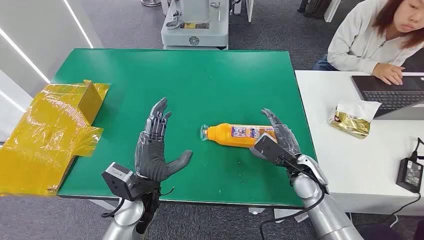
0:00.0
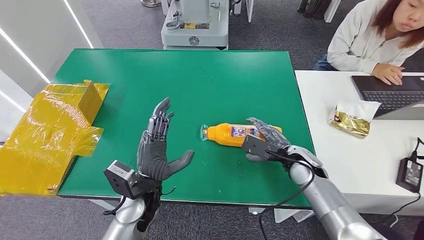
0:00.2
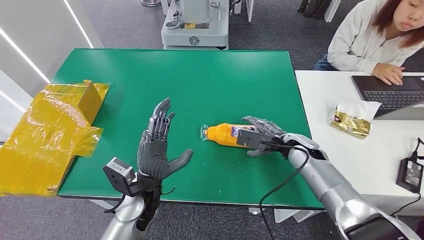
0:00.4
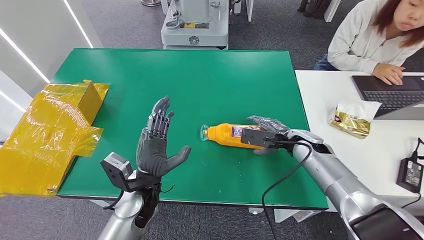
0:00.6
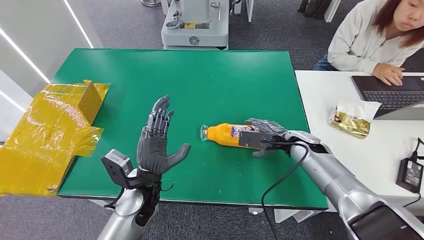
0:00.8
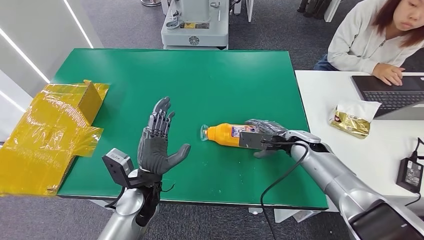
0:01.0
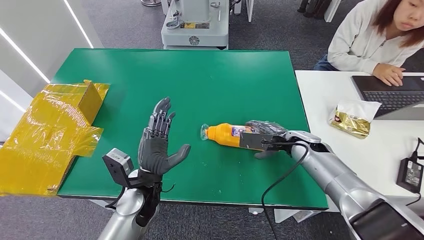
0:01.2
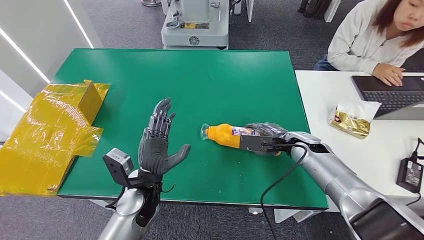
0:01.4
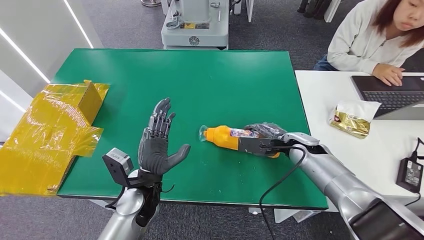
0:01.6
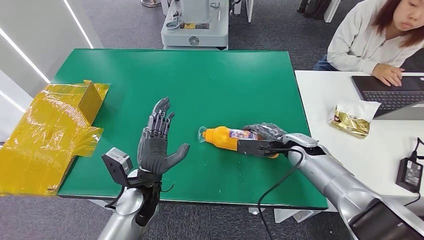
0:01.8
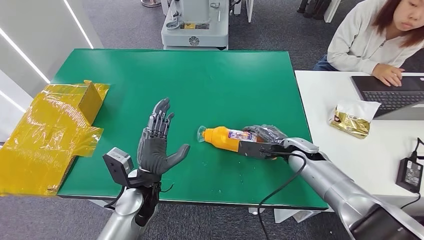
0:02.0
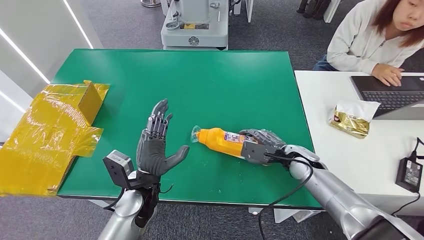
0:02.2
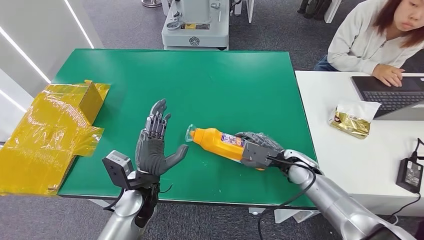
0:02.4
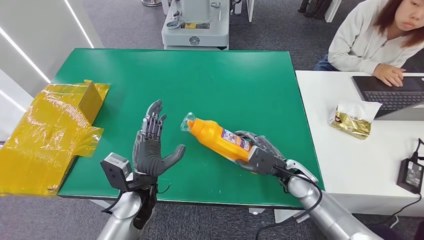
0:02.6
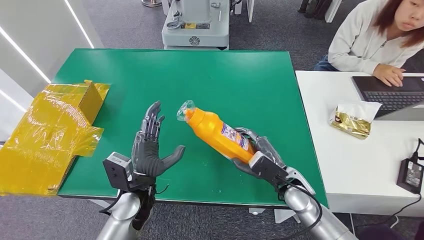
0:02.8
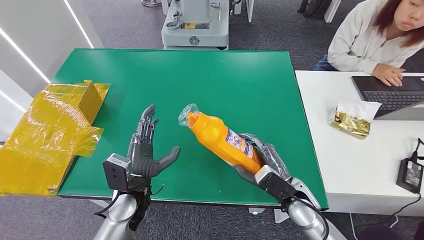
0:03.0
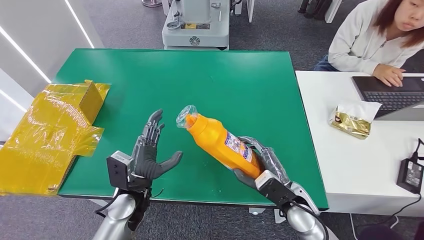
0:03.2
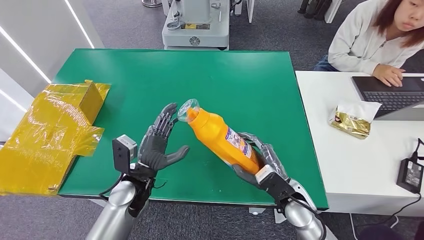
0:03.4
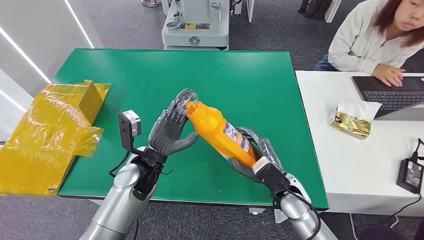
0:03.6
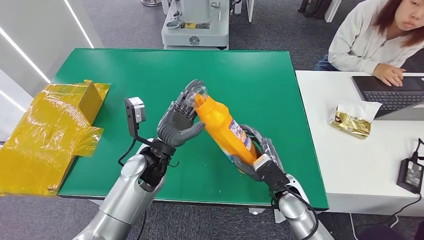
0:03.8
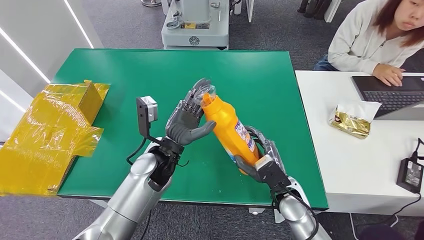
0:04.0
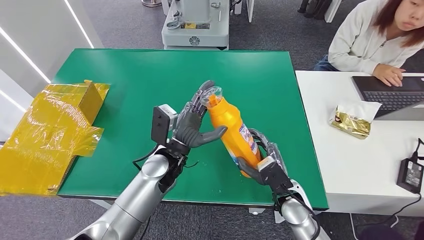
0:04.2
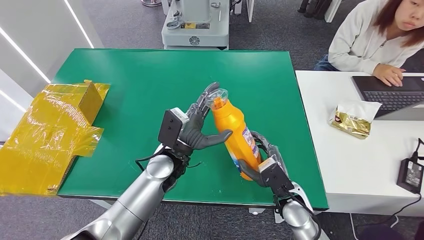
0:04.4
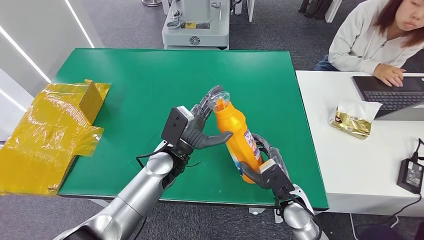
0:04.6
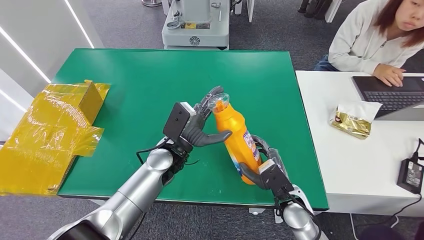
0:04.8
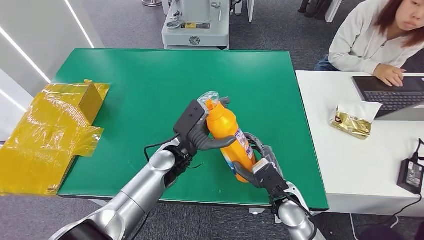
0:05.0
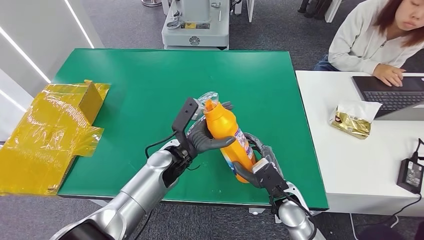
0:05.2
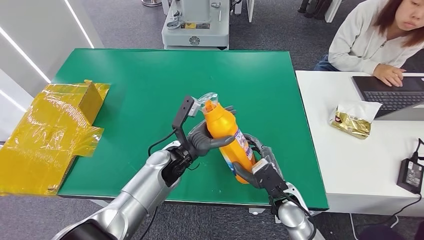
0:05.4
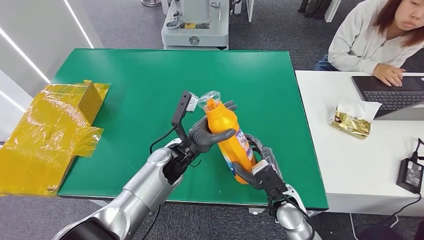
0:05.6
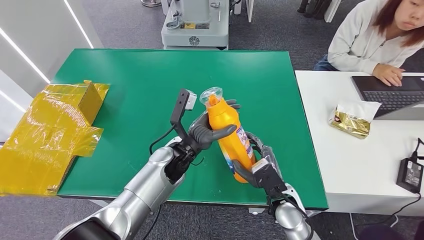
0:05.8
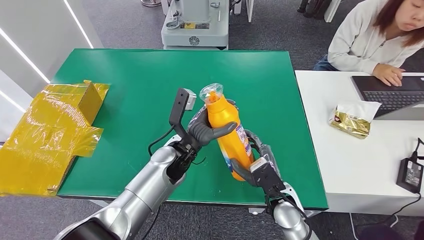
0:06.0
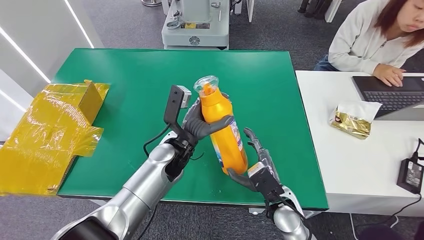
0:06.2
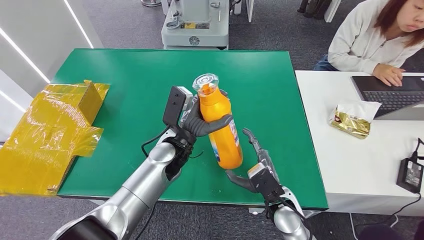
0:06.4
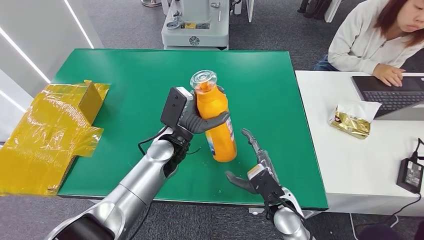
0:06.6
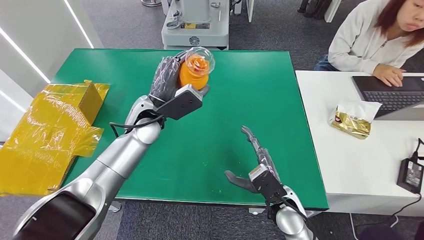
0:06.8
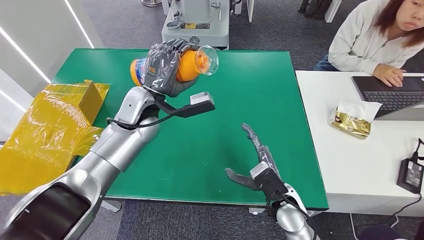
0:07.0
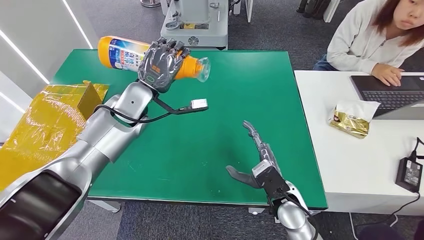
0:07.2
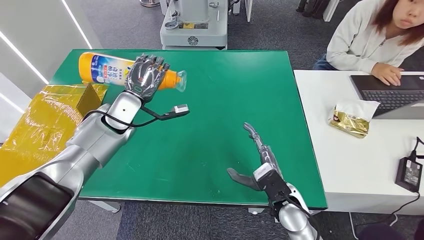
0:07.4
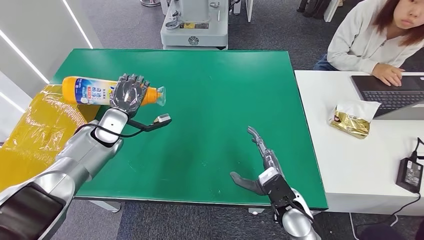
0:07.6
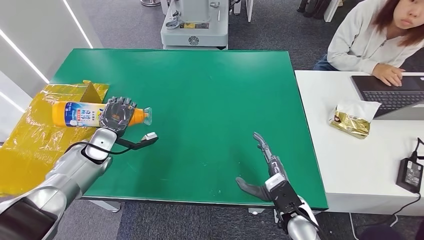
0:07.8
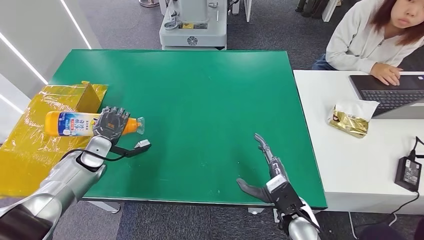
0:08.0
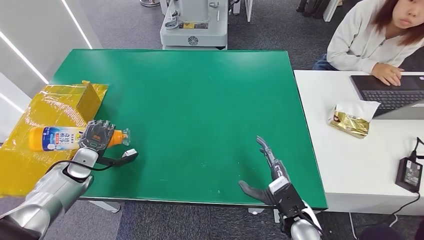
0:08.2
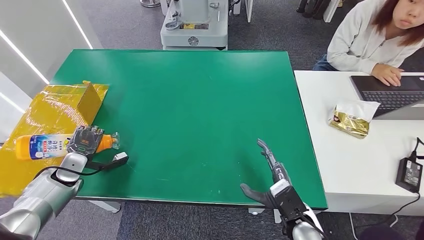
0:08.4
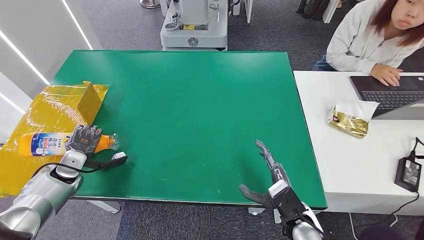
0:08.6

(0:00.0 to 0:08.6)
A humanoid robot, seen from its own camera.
Step, 0:00.0 - 0:02.8: Pick up the bottle from the table.
Step, 0:03.2 - 0:08.6: Turn the bottle to the front side.
0:01.4 - 0:02.8: The right hand goes approximately 10 cm backward.
0:02.8 - 0:04.4: The left hand travels forward and to the right by approximately 10 cm.
0:07.2 - 0:08.6: The left hand goes some 35 cm to the left, downward and backward; the right hand changes place by roughly 5 cm.

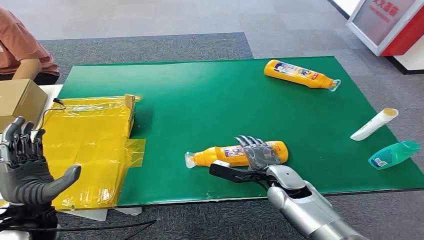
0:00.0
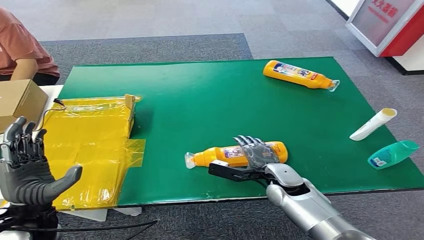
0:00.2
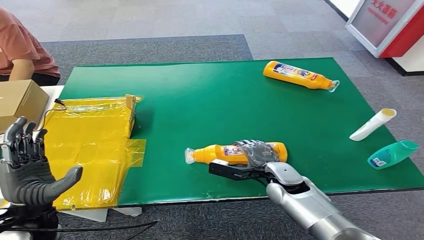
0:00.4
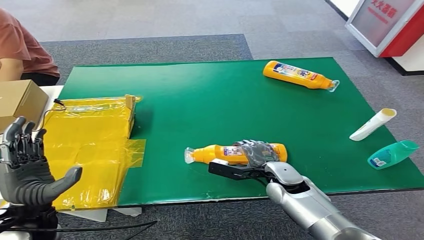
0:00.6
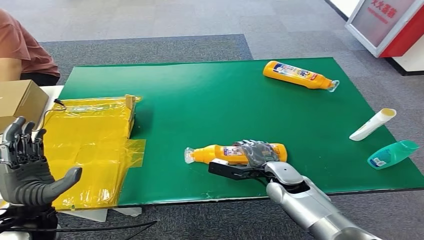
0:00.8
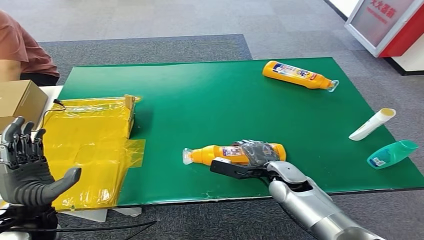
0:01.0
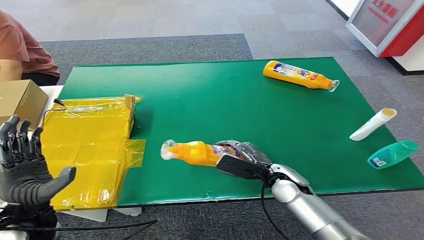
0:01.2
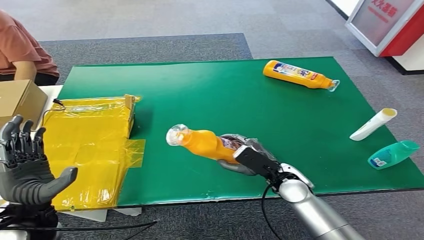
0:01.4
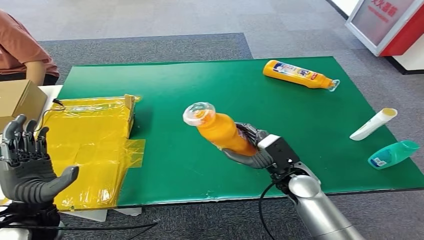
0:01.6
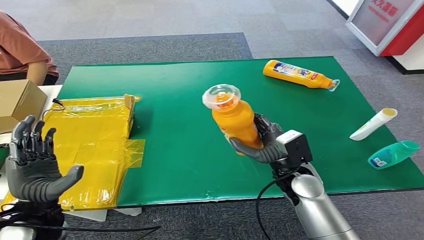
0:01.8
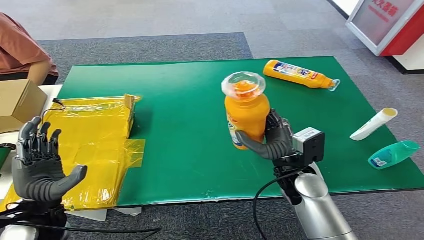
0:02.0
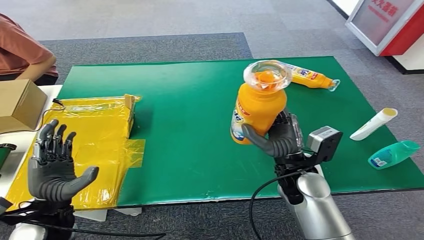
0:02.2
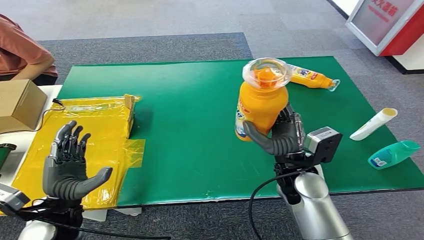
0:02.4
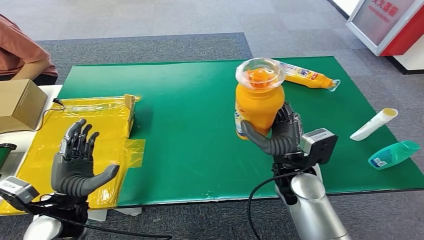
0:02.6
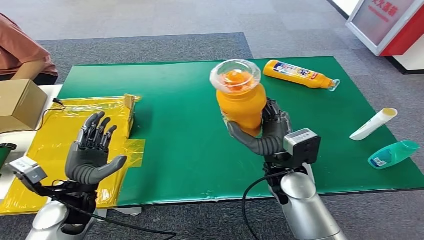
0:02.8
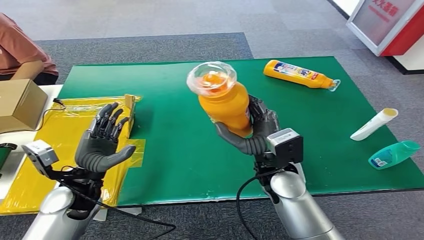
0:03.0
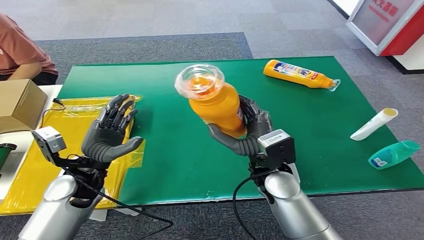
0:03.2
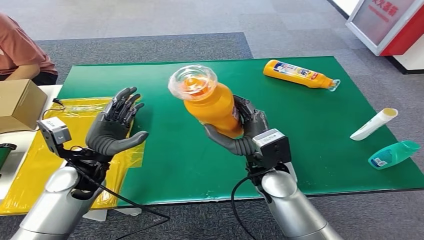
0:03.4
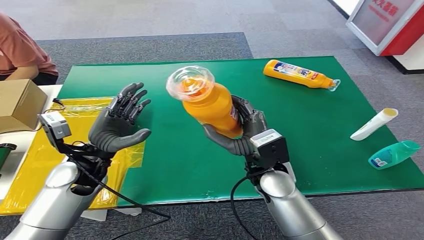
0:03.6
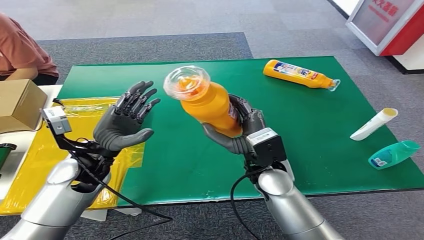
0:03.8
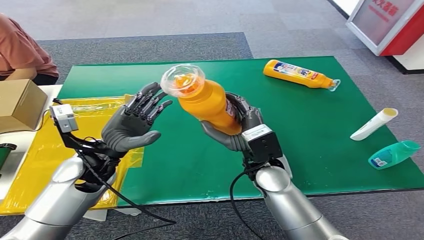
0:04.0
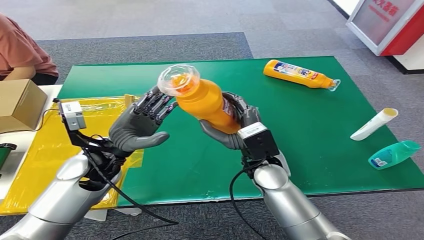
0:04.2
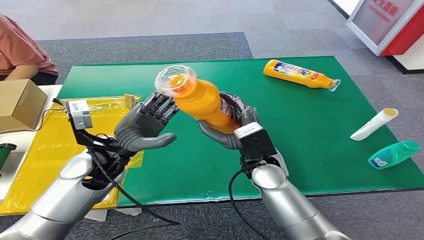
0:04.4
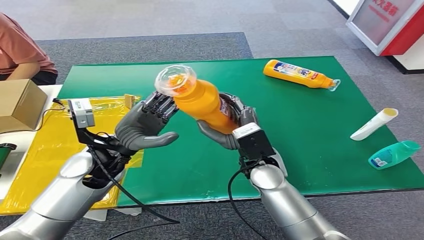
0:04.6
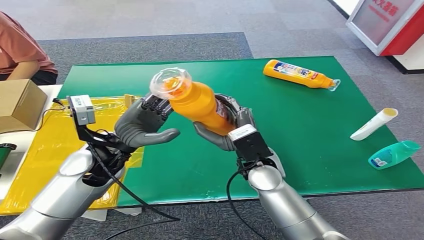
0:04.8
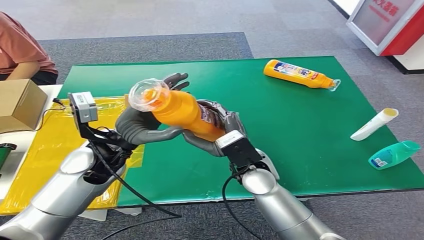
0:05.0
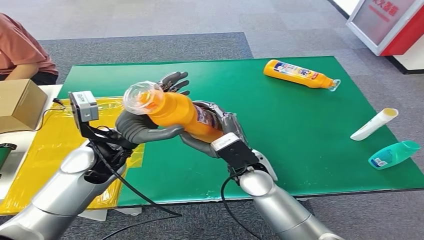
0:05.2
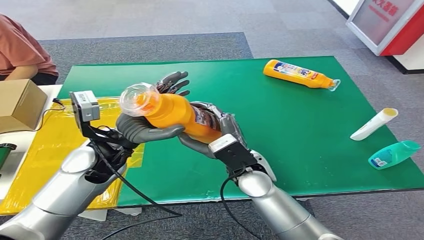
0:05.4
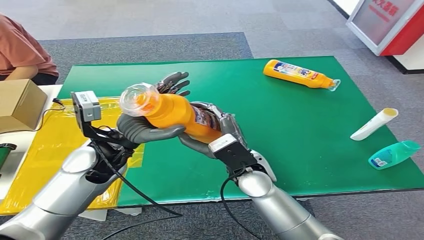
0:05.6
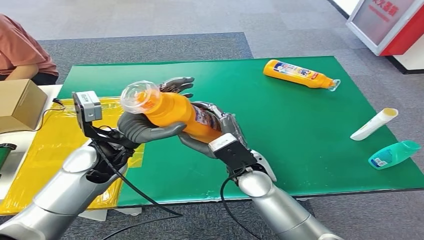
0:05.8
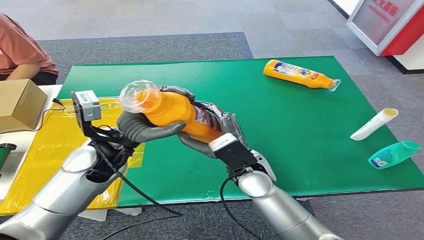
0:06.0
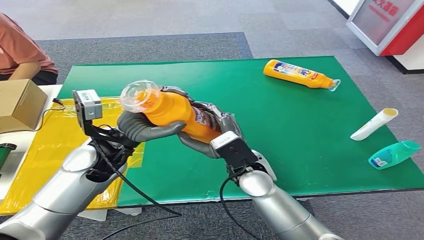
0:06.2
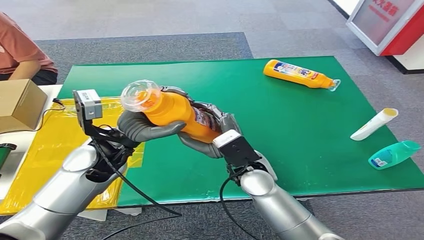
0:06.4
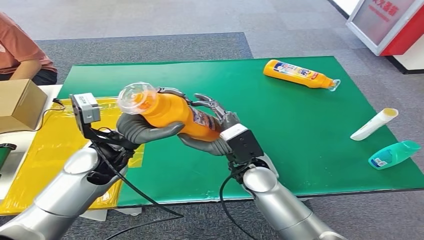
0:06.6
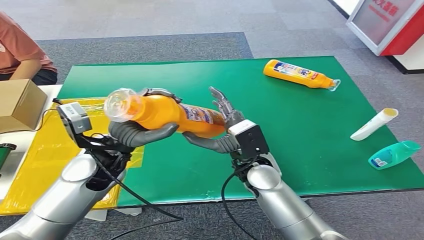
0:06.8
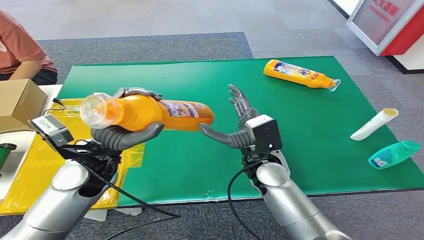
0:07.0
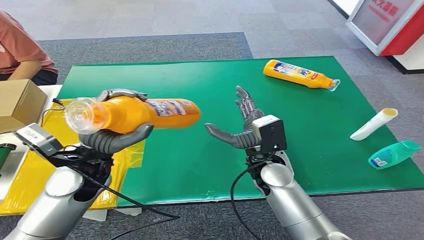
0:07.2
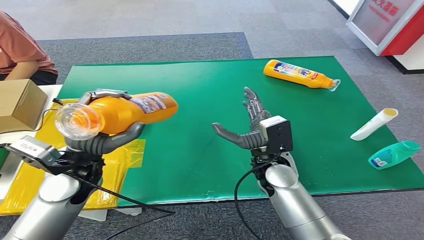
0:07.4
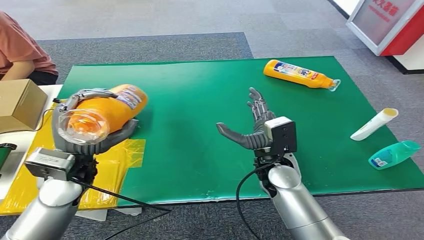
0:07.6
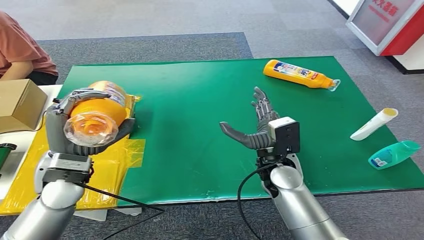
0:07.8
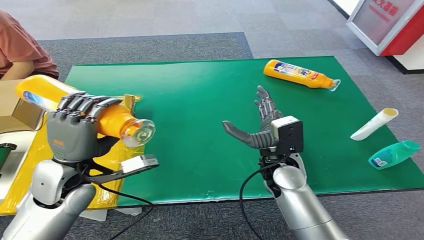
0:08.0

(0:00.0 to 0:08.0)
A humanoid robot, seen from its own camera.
Step, 0:00.0 - 0:01.8: Pick up the bottle from the table.
0:04.8 - 0:06.4: The hands stay close to where they were, moving slightly.
